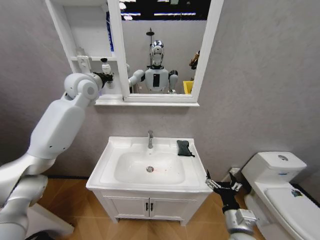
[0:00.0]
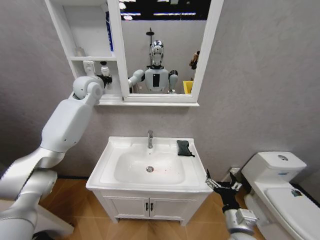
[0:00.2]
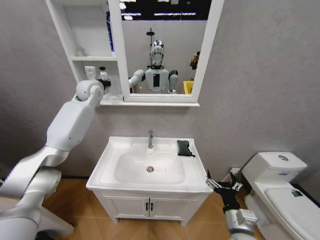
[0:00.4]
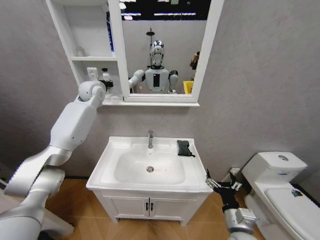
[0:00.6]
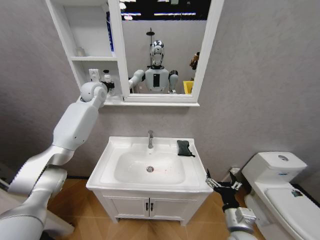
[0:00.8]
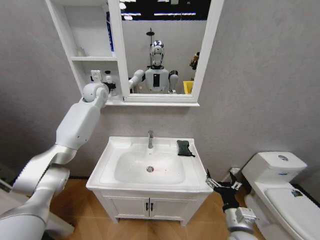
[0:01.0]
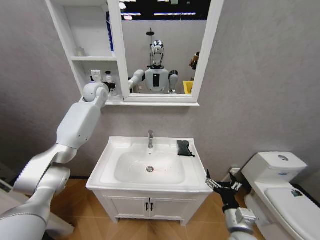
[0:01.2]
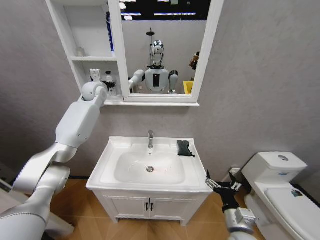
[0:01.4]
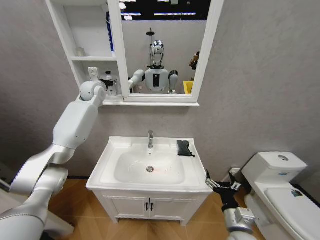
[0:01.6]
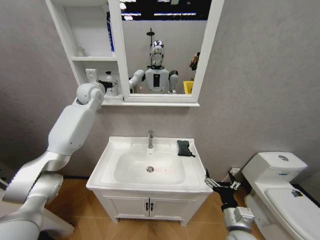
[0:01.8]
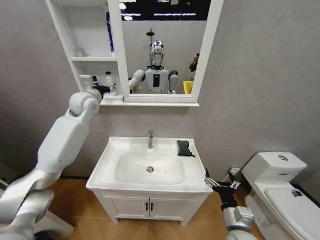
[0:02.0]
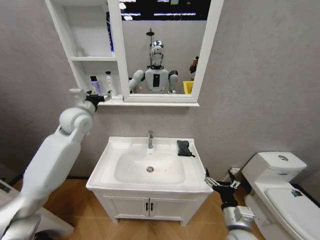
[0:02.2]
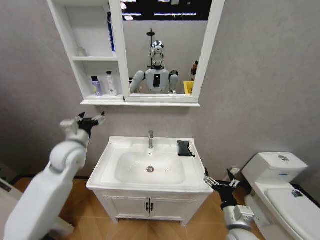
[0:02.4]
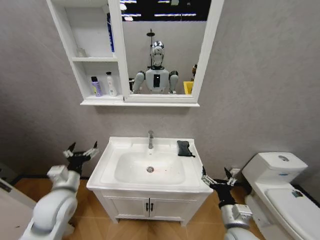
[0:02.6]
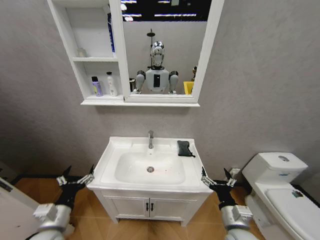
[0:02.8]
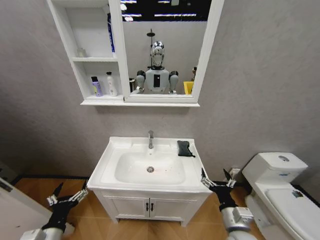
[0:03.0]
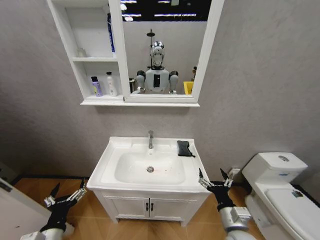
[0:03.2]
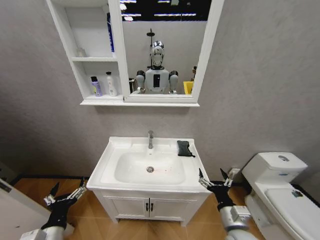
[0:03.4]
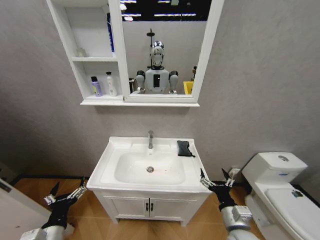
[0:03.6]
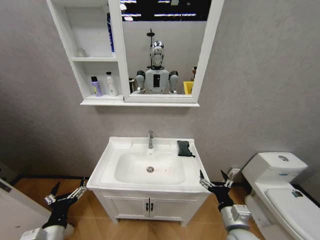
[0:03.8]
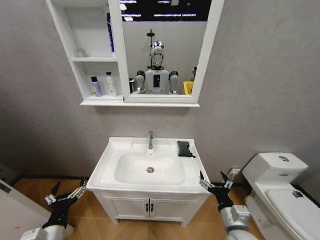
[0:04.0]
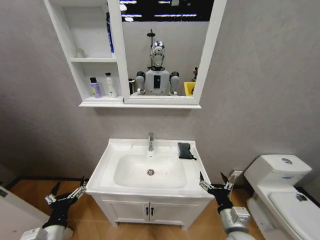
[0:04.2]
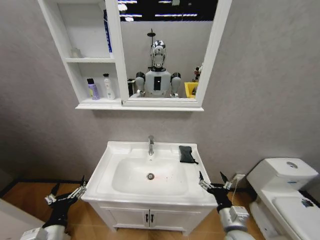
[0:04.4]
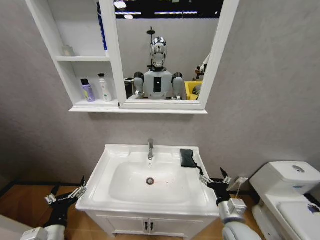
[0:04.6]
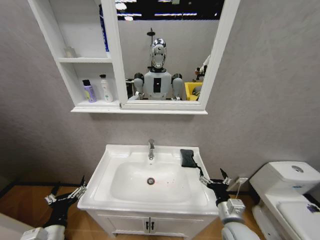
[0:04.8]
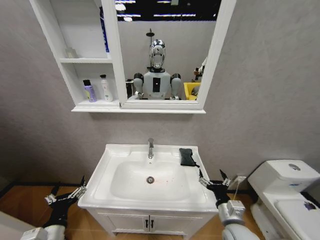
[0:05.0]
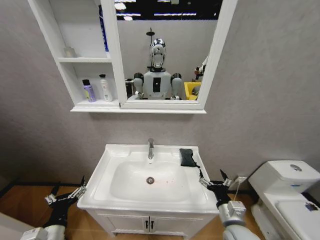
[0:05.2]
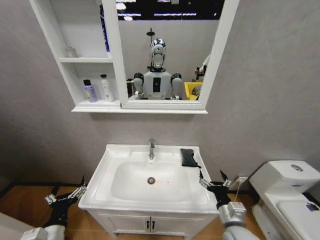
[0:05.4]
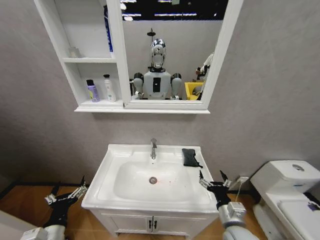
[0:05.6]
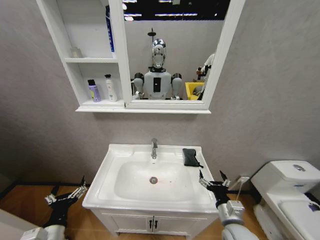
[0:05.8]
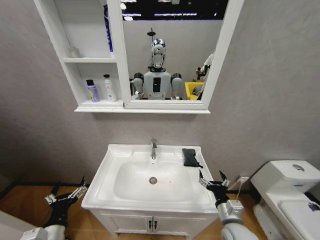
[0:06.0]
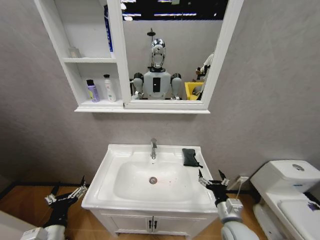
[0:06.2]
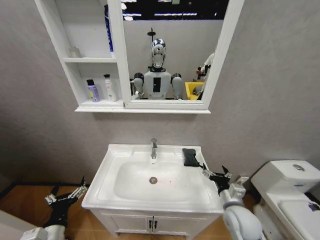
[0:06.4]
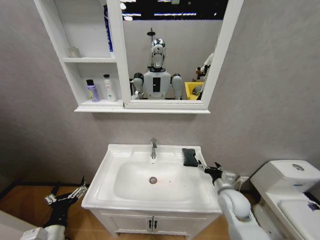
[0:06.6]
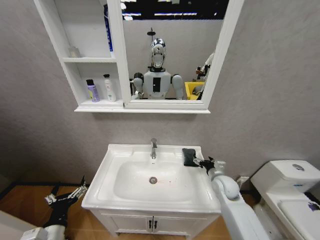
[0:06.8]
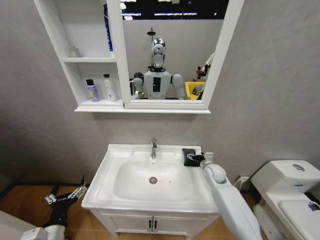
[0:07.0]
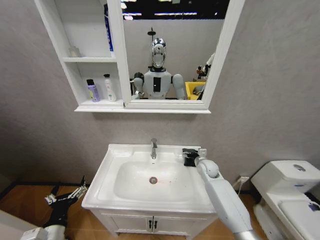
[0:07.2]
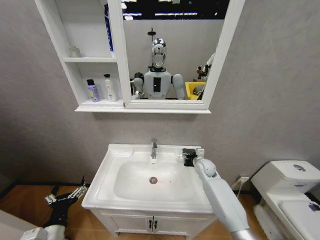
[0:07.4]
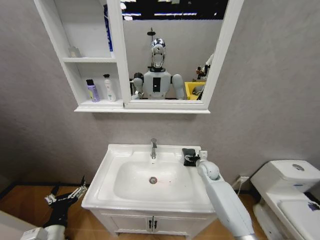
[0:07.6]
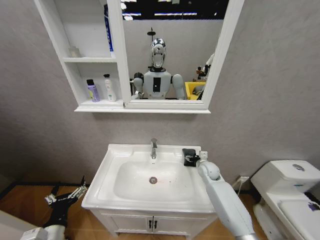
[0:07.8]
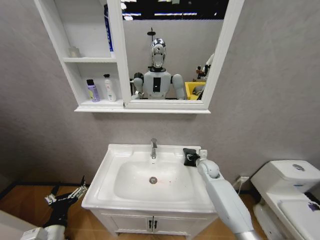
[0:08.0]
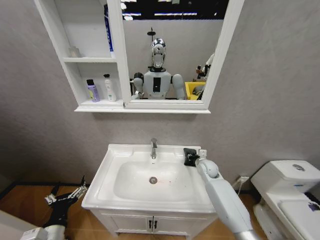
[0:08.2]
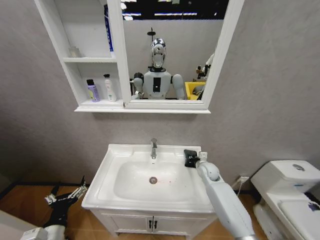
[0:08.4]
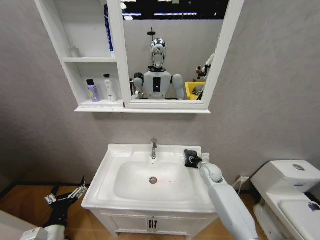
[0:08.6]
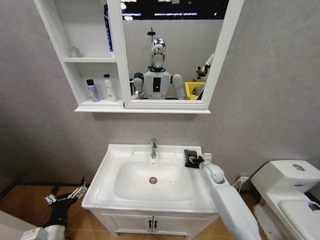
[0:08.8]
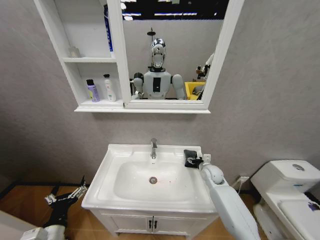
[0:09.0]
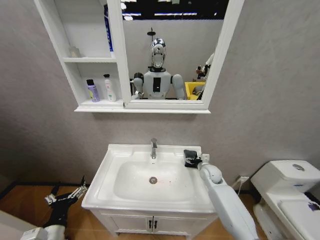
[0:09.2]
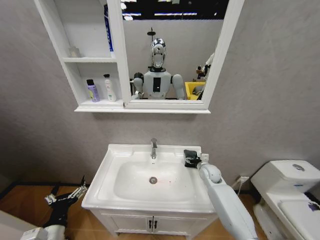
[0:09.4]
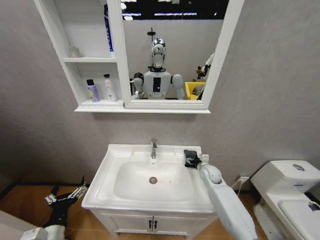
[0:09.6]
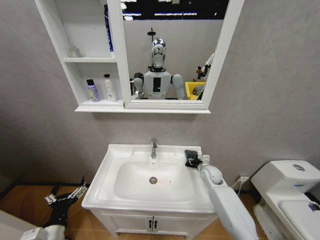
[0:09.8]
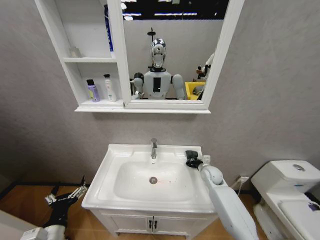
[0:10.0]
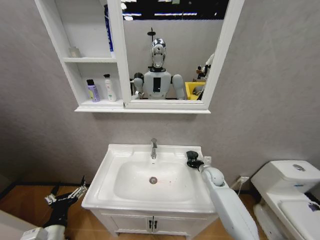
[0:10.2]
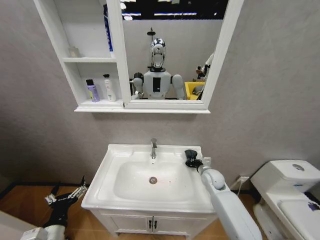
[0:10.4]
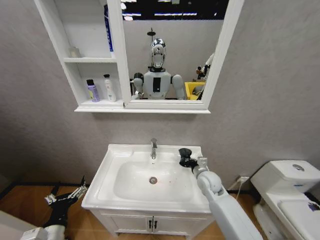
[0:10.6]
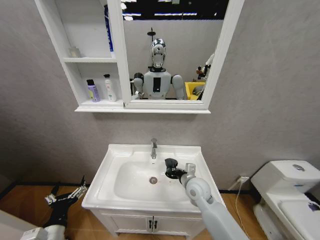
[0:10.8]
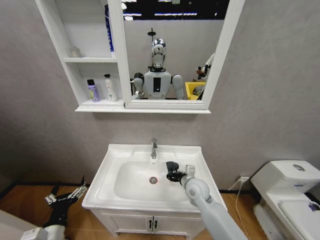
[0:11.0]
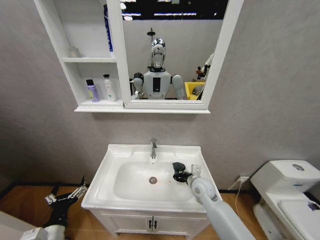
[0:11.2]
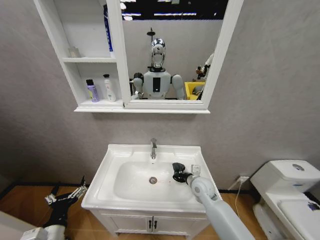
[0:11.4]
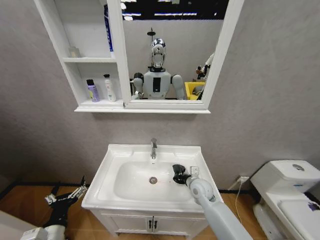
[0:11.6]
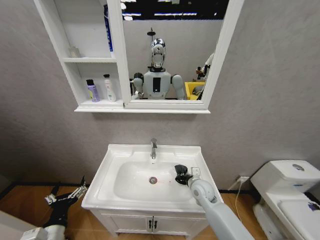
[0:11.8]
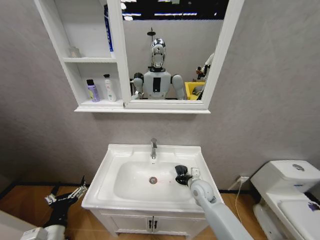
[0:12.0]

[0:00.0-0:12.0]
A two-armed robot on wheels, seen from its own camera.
Task of the whole recording: Move facial cleanser and shampoo from washbasin to cabinet, then wipe washbasin with towel.
0:00.0 to 0:01.6: The left gripper heads forward, covering some 10 cm, and opens.
0:01.6 to 0:03.0: The left gripper moves backward and downward, some 60 cm.
0:04.4 to 0:06.0: The grippers stay close to where they were, moving slightly.
0:06.0 to 0:07.6: The right gripper is displaced forward by approximately 25 cm.
0:07.6 to 0:09.0: The right gripper closes, then opens again.
0:09.0 to 0:10.4: The right gripper closes up.
0:10.4 to 0:12.0: The right gripper heads to the left and backward, covering approximately 10 cm.

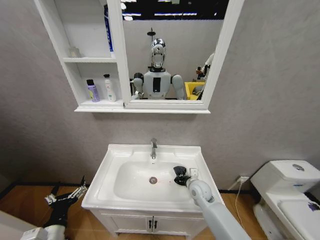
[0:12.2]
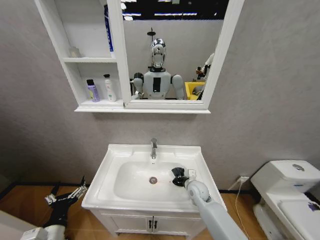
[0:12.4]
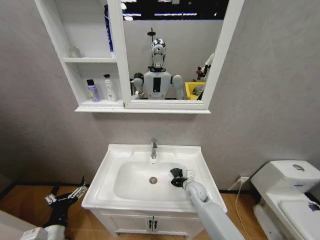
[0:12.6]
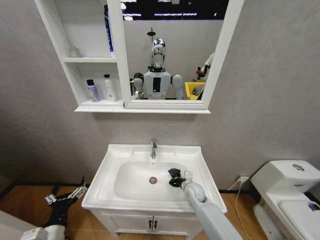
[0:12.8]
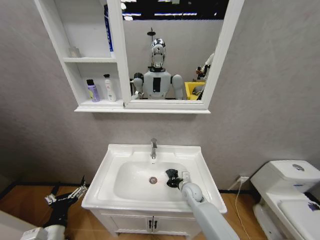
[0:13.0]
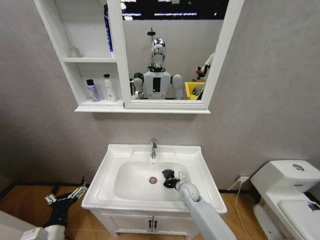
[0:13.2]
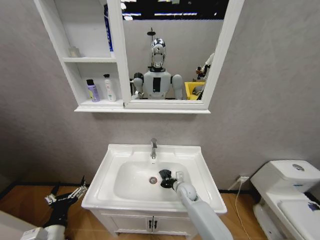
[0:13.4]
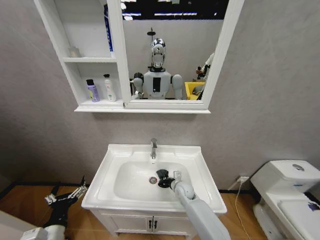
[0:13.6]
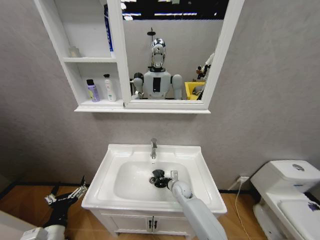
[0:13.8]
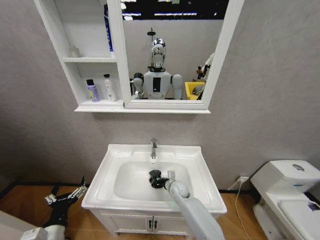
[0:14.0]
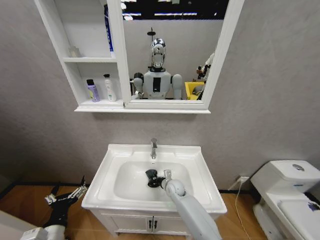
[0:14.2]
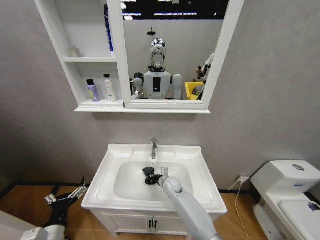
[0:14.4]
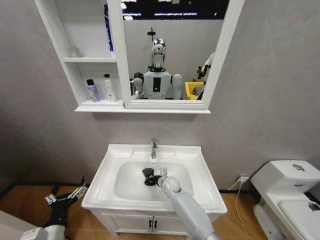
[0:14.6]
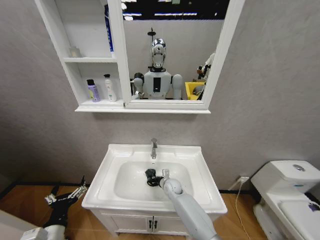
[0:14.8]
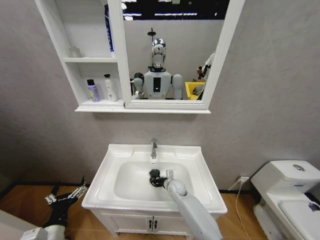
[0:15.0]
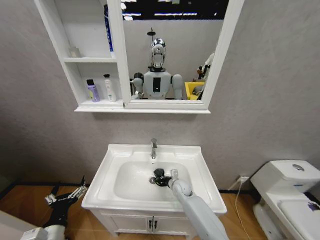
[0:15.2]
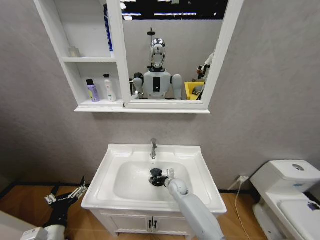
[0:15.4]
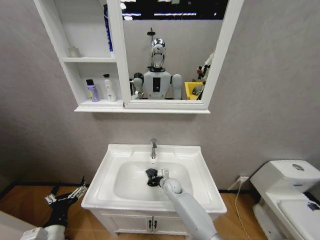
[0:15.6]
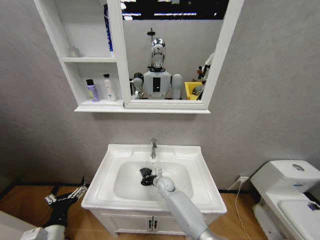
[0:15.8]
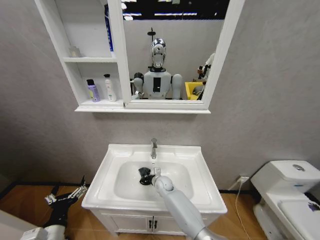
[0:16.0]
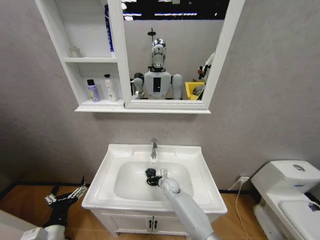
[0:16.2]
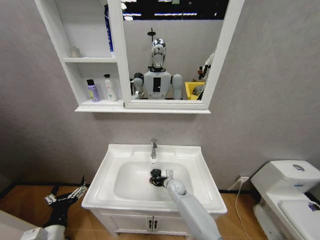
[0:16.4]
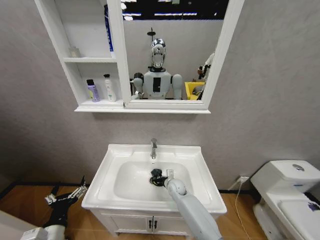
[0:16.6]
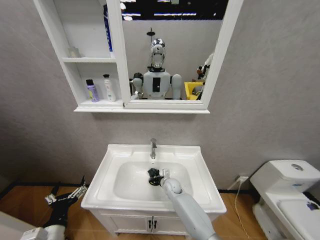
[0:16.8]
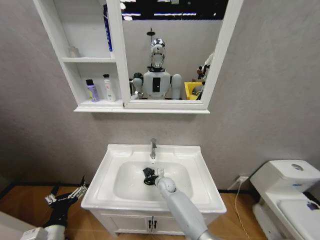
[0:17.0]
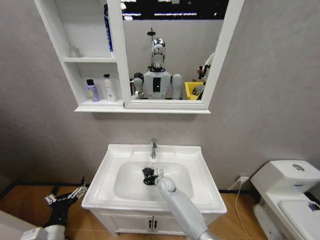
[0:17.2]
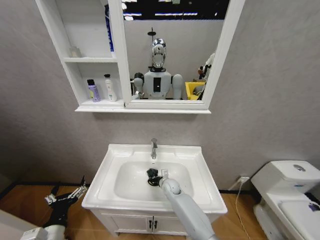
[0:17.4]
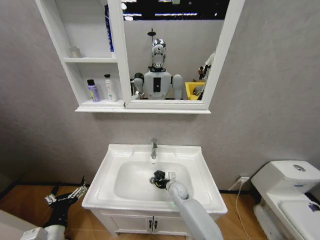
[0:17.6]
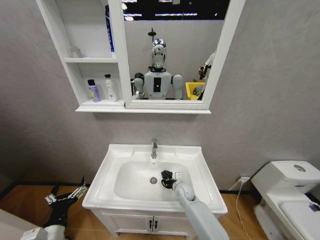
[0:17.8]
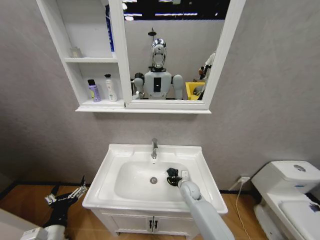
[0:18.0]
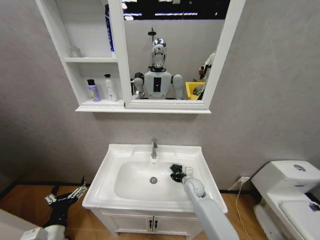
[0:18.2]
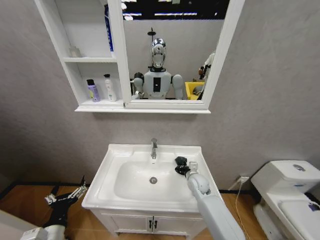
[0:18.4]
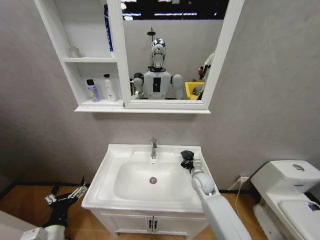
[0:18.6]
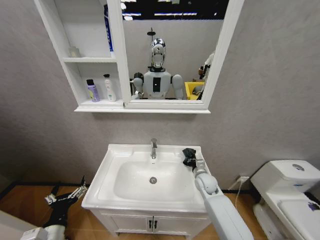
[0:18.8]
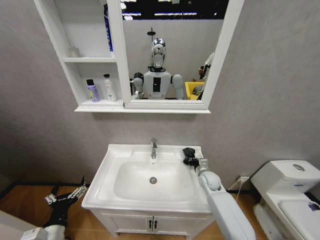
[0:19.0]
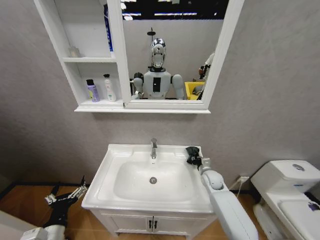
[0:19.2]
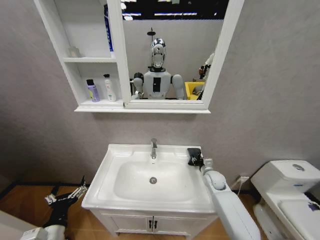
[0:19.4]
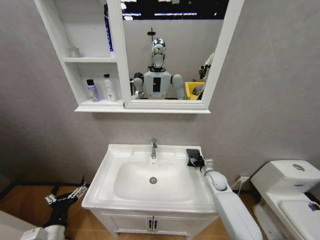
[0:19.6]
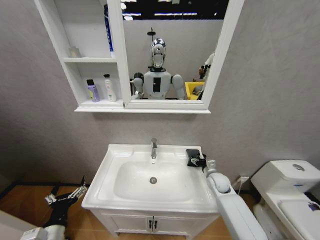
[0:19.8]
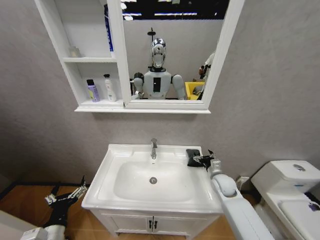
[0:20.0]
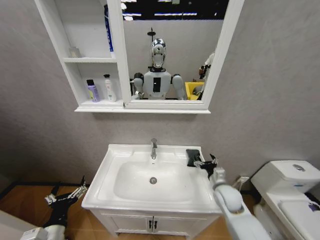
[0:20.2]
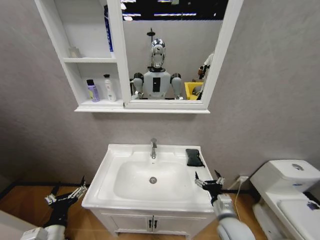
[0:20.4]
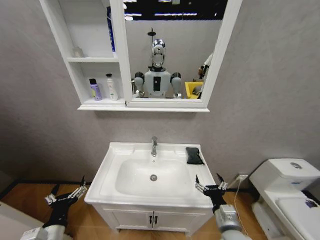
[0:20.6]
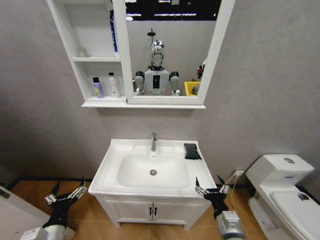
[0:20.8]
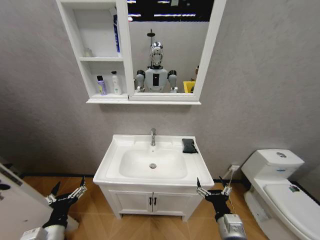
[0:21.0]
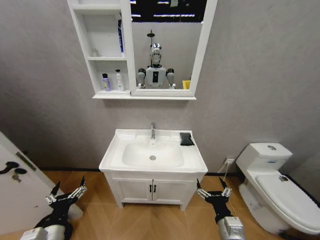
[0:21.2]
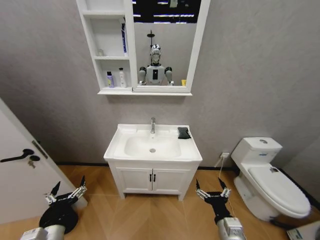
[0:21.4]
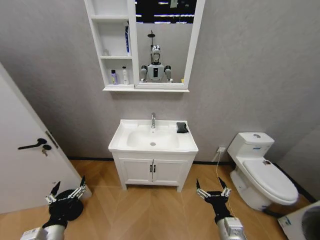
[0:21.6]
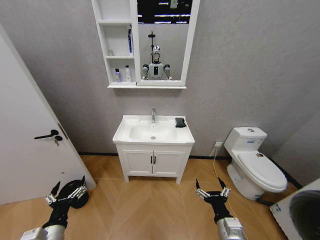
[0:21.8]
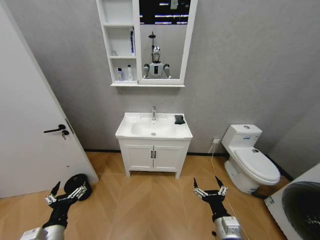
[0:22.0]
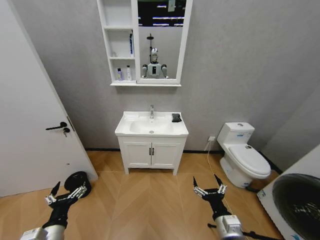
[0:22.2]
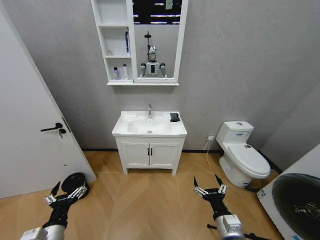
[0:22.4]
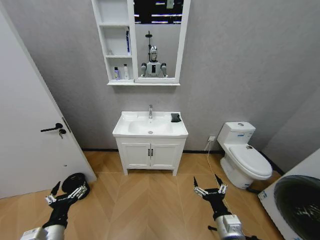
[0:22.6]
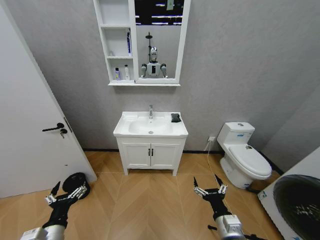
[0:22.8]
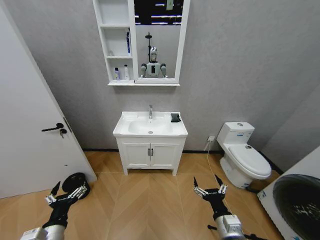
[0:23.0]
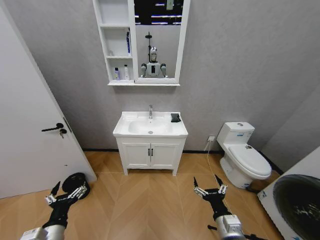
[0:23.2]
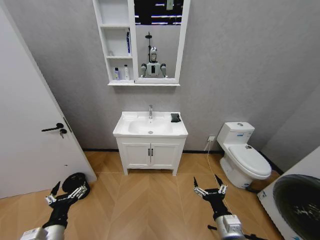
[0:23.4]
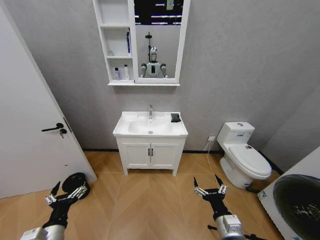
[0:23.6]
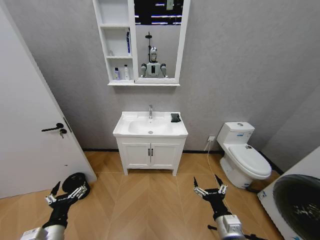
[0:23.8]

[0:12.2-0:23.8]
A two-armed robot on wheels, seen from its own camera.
Task of the whole recording: Move facial cleanser and shampoo from washbasin to cabinet, then wipe washbasin with towel.
0:12.2 to 0:13.6: The right gripper shifts some 10 cm downward and to the left.
0:16.6 to 0:18.0: The right gripper moves to the right, about 5 cm.
0:18.0 to 0:19.4: The right gripper is displaced to the right and upward by roughly 15 cm, and opens up.
0:19.4 to 0:21.0: The right gripper heads backward, covering some 30 cm, and opens its fingers.
0:22.4 to 0:23.8: Neither gripper changes place.
